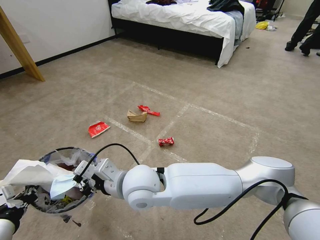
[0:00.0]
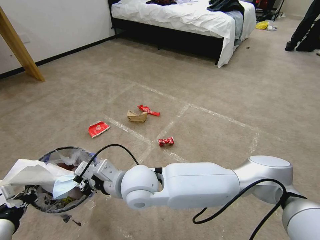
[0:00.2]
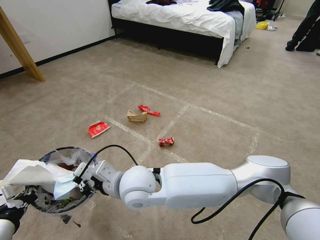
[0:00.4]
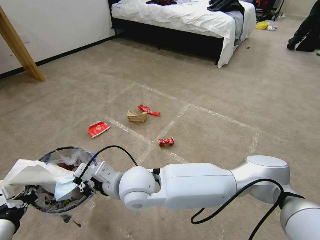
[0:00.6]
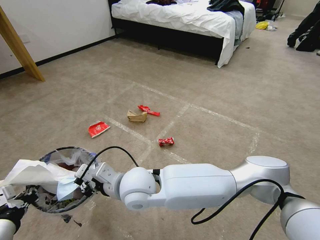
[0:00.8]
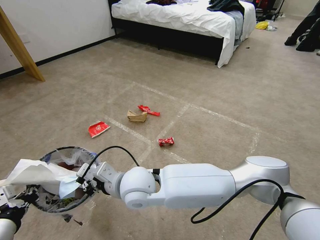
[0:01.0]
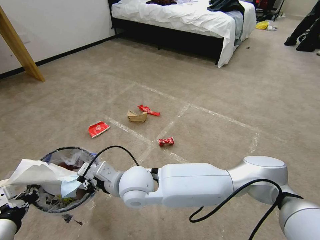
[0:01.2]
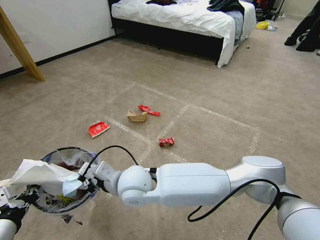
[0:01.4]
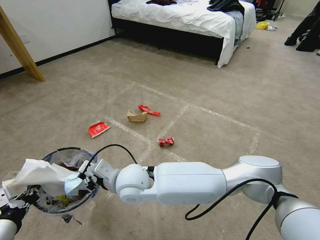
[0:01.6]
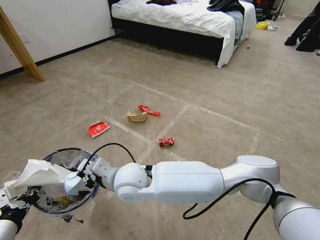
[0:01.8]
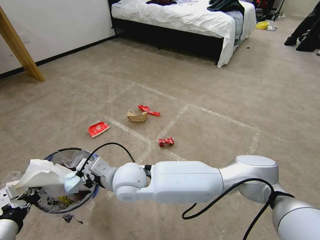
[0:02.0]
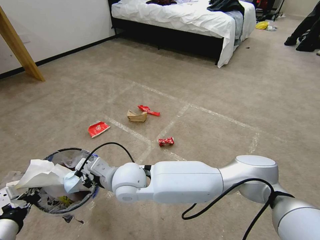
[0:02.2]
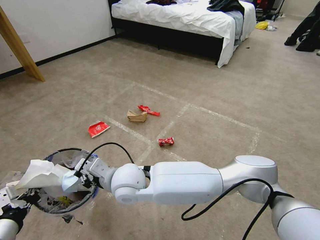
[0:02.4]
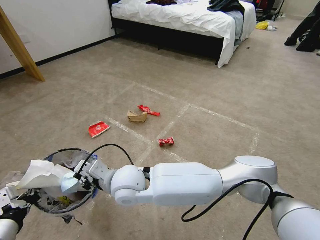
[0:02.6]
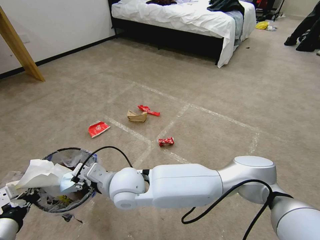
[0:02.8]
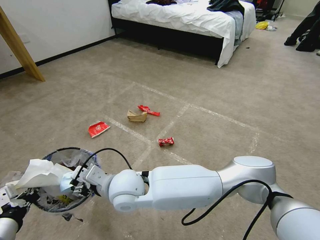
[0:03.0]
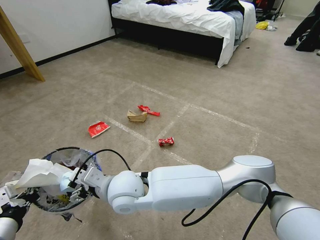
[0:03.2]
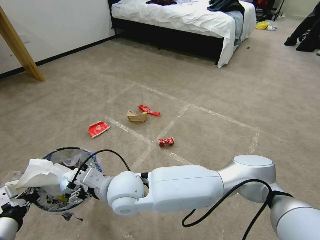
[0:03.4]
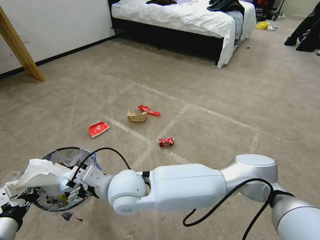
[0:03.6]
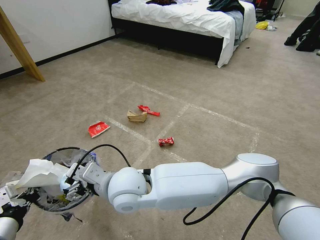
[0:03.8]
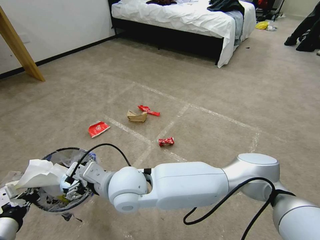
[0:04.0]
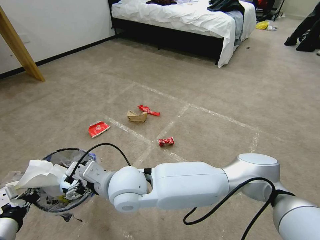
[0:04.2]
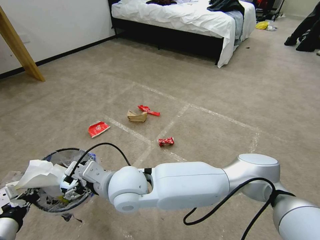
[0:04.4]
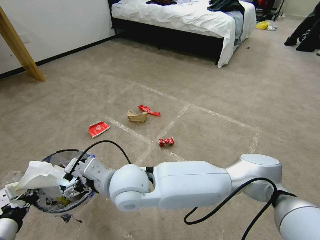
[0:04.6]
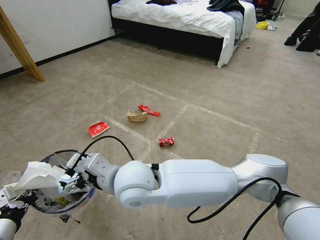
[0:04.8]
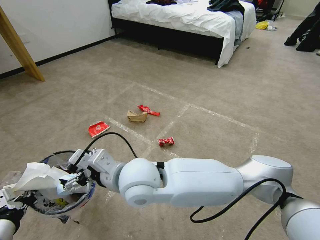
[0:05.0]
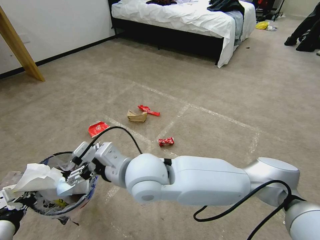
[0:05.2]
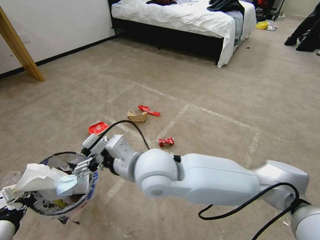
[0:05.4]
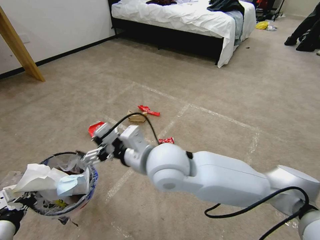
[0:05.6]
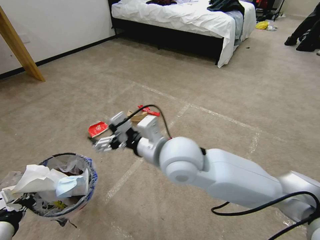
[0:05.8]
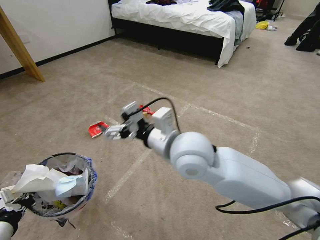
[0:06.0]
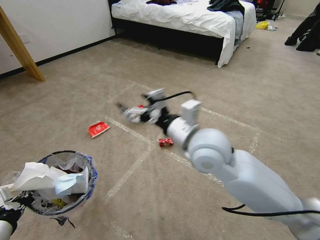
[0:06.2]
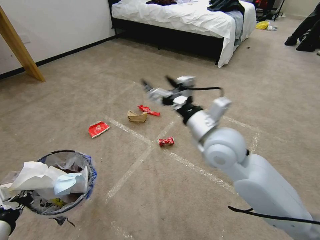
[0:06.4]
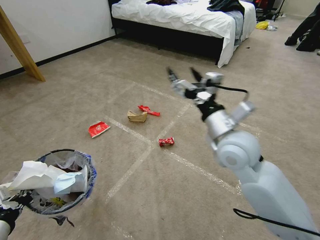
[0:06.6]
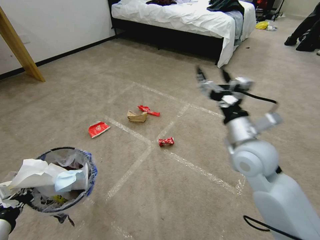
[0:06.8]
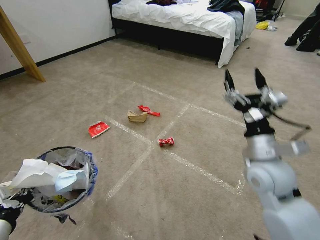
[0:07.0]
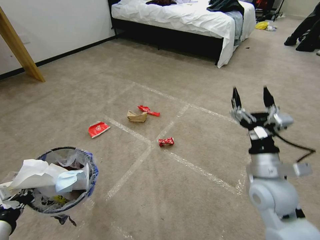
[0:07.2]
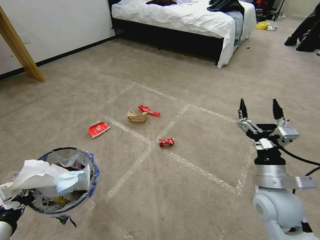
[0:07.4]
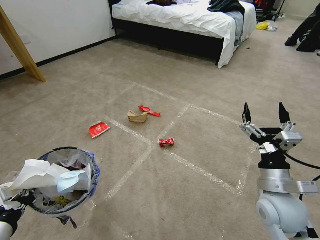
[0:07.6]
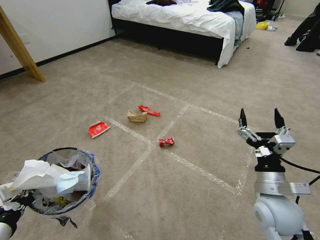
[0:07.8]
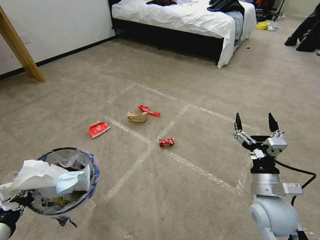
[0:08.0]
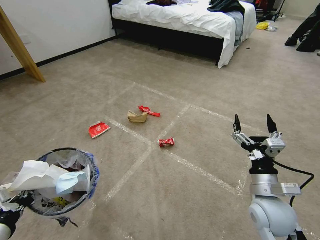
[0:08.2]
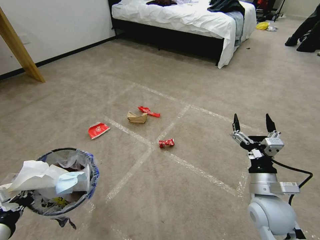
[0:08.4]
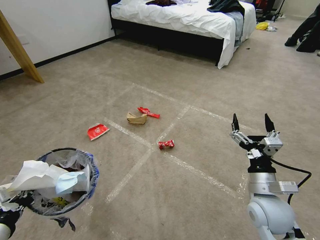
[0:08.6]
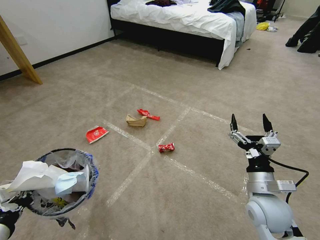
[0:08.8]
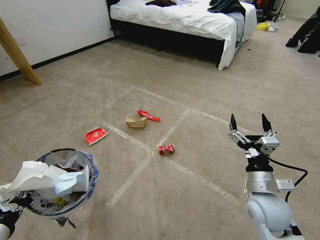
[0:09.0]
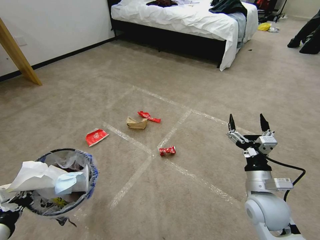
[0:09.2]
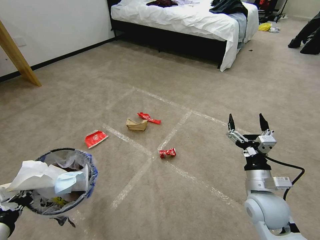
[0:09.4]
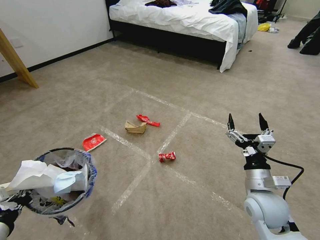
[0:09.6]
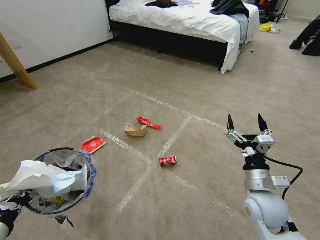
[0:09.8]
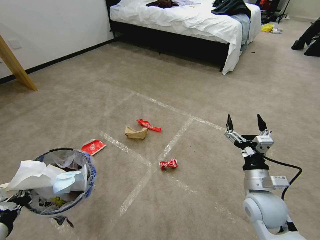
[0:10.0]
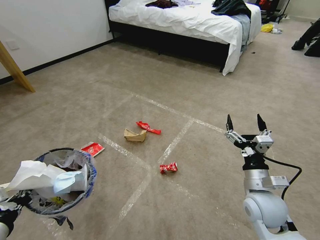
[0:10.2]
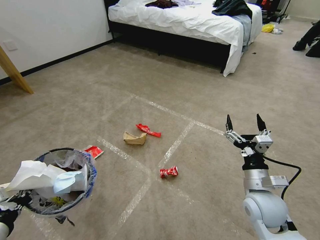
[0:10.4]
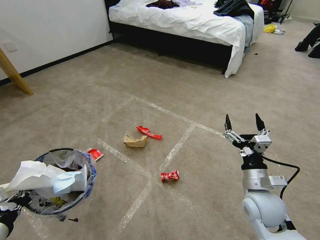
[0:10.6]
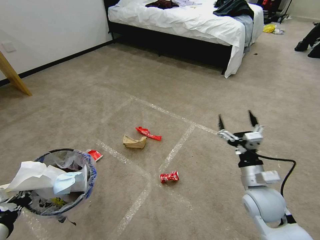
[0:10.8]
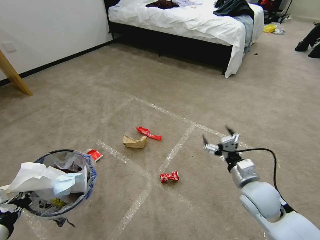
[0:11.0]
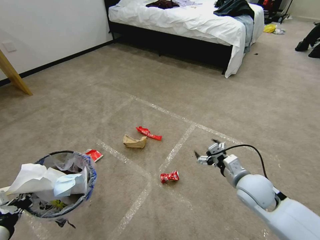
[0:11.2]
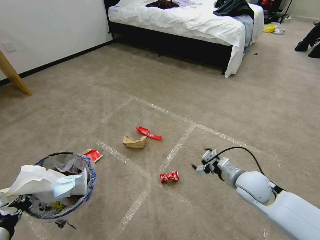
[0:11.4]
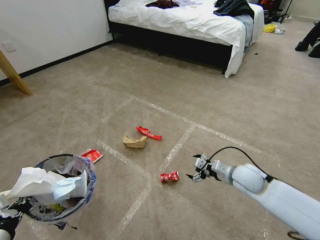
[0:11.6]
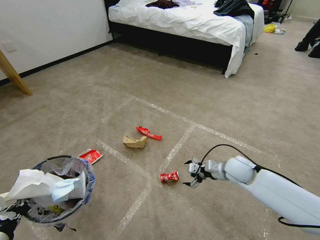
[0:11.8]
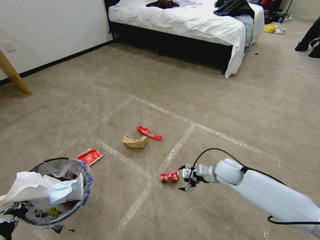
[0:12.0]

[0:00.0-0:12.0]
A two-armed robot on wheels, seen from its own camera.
Task of the whole recording: Pick up the trash bin and place the garbage on the floor into it.
0:00.0 to 0:01.6: The right gripper moves about 5 cm.
0:01.6 to 0:03.0: The right gripper opens up.
0:03.0 to 0:04.4: There are only small adjustments of the grippers.
0:04.4 to 0:06.0: The right gripper goes roughly 20 cm to the right and upward.
0:06.0 to 0:07.6: The right gripper goes about 25 cm to the right and downward.
0:07.6 to 0:09.0: The grippers move only a little.
0:09.0 to 0:10.4: The two grippers keep their place.
0:10.4 to 0:12.0: The right gripper travels forward and downward by roughly 15 cm.

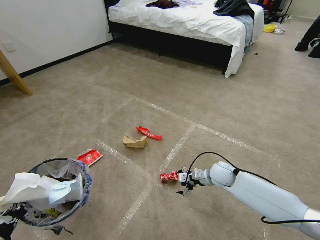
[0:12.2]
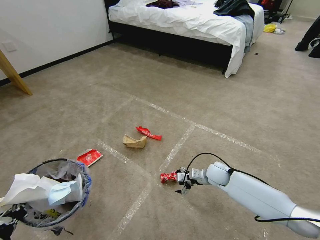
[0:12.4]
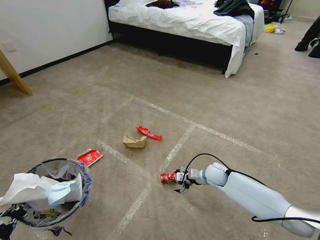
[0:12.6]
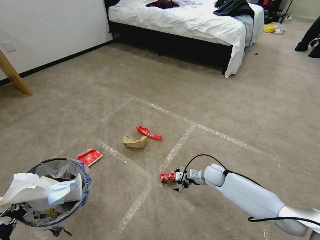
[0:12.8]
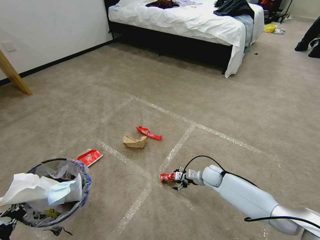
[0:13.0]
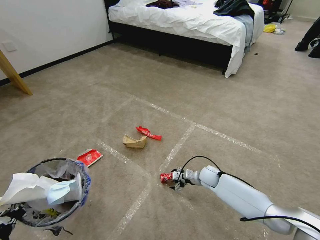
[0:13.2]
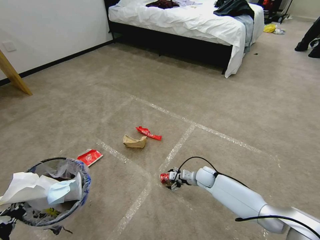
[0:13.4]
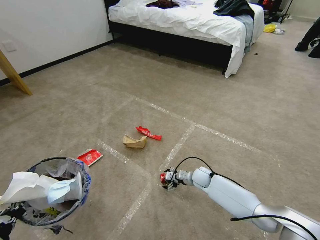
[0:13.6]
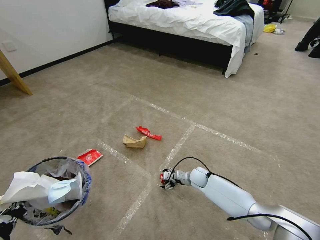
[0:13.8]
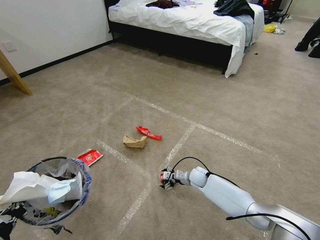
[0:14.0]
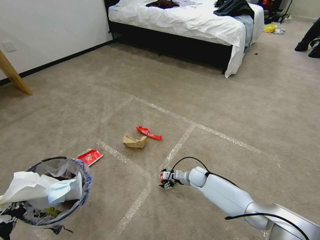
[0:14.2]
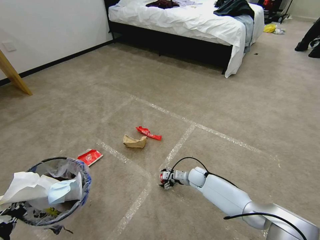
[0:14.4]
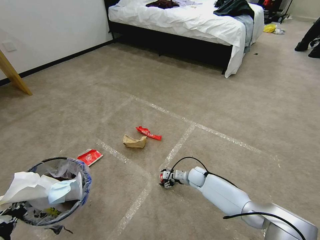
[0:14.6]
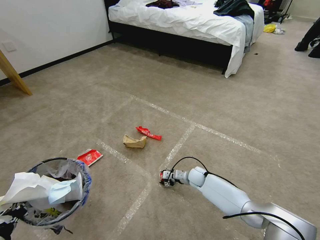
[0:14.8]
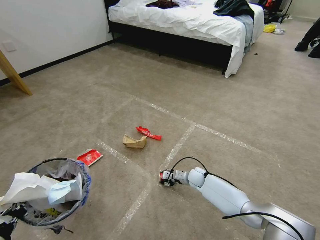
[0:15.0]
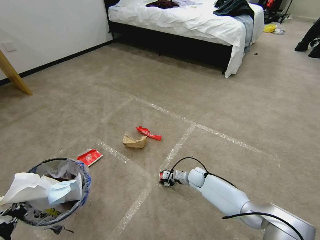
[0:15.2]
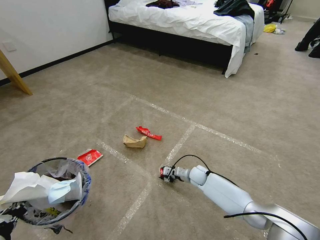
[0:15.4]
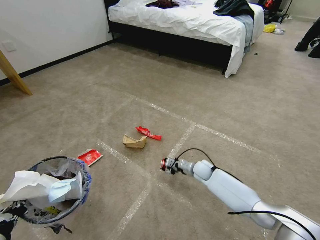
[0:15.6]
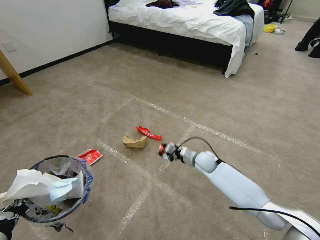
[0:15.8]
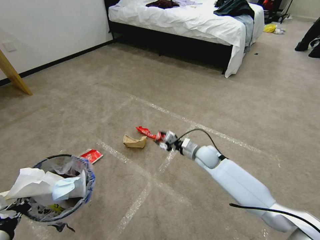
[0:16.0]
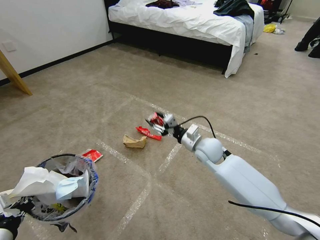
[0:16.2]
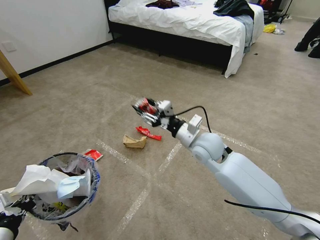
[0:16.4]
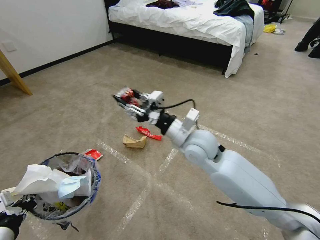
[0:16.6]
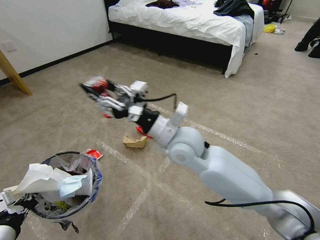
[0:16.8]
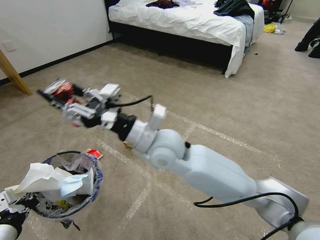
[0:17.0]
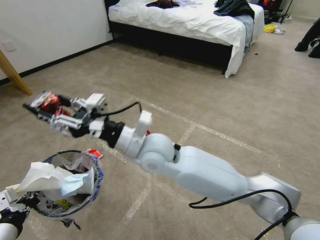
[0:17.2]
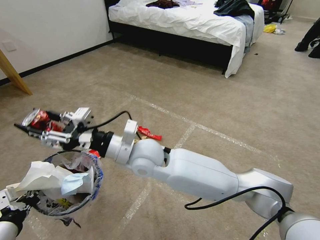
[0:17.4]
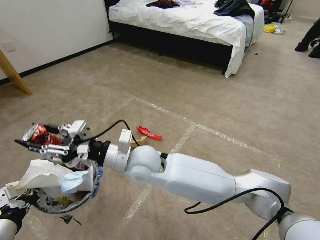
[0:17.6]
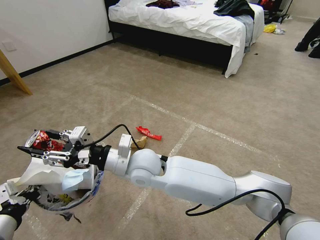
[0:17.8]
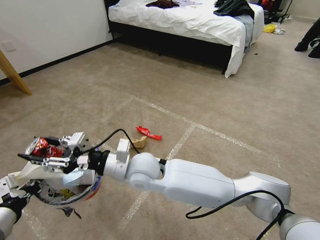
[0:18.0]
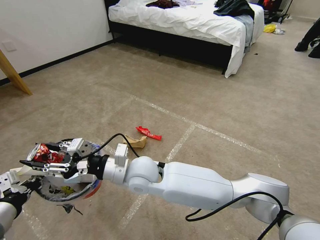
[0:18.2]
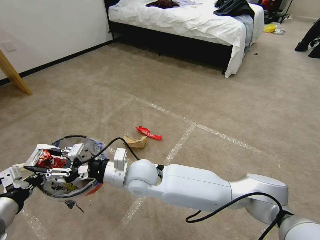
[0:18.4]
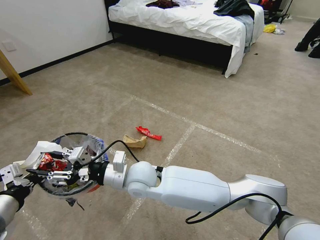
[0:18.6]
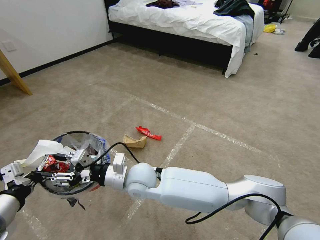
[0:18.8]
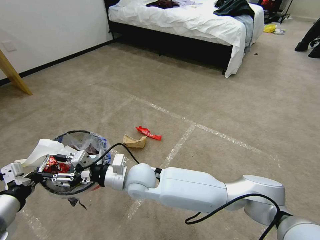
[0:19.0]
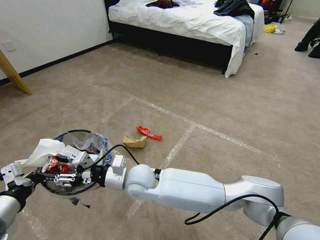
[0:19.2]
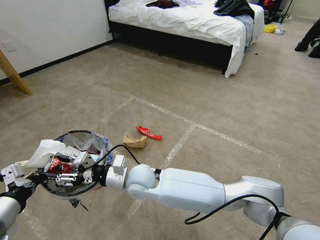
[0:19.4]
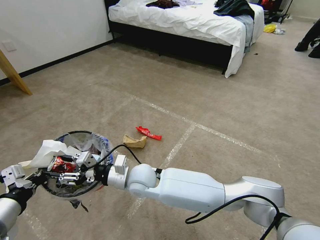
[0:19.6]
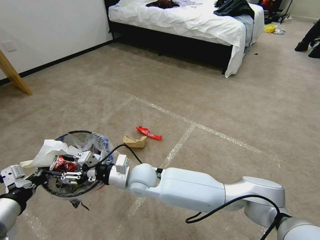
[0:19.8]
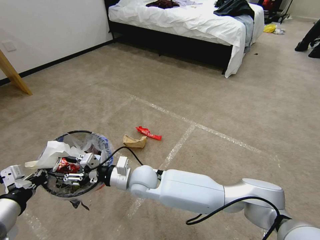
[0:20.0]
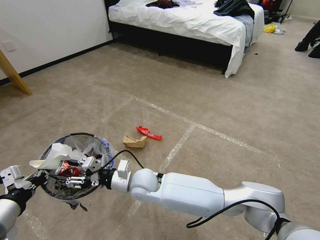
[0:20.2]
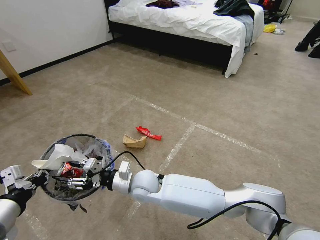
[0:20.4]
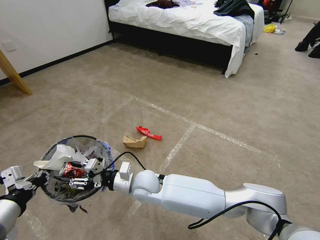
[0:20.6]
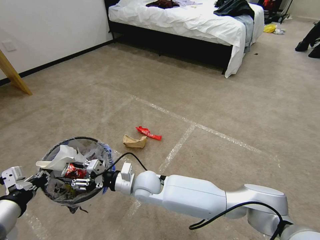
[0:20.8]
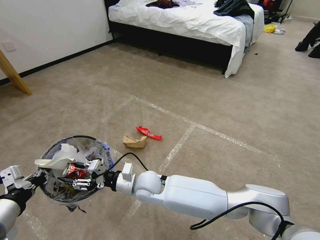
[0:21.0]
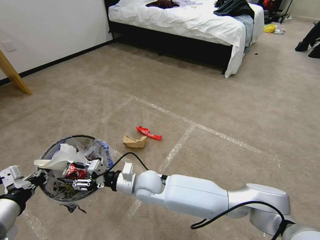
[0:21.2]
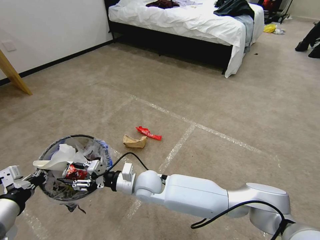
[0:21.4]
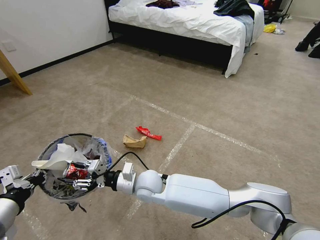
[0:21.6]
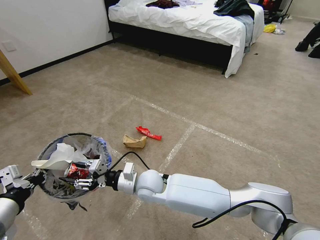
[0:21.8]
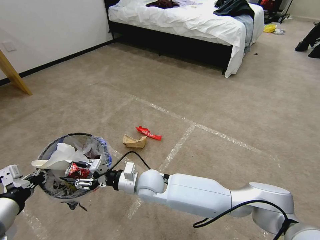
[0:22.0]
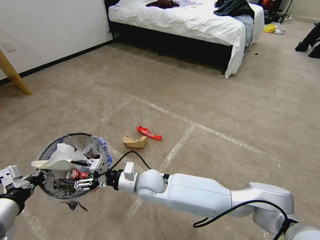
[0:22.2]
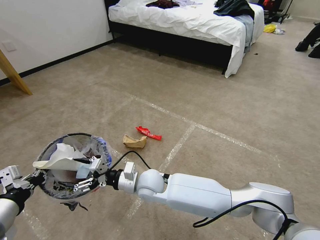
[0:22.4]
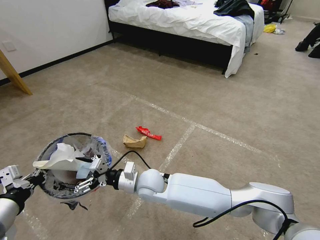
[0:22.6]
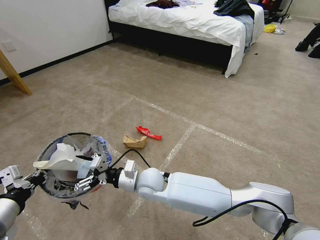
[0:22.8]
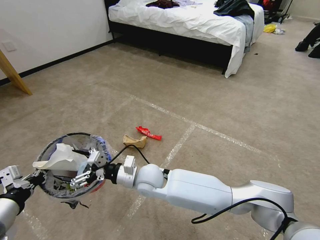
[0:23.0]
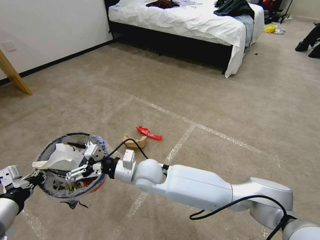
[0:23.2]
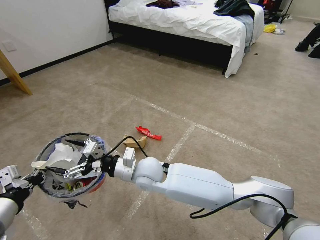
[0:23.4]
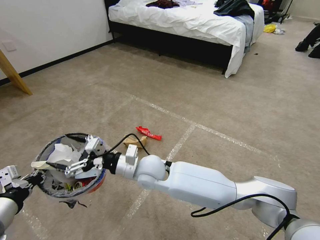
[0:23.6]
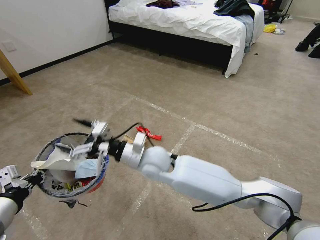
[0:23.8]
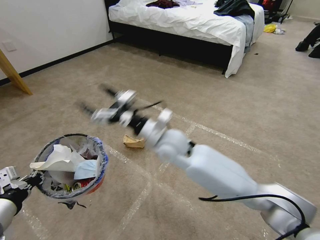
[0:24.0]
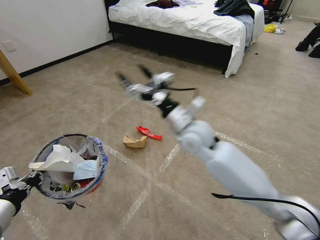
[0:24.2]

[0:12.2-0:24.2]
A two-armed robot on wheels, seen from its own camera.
Task of the whole recording: Pick up the trash bin and place the garbage on the floor into it.
0:12.2 to 0:13.8: The right gripper travels downward and to the left by roughly 15 cm.
0:13.8 to 0:15.2: The right gripper closes up.
0:15.2 to 0:16.6: The right gripper travels upward by about 35 cm.
0:16.6 to 0:18.2: The left gripper ends up approximately 5 cm from where it was. The right gripper is displaced to the left and downward by roughly 15 cm.
0:18.2 to 0:19.8: The right gripper heads downward, covering some 5 cm.
0:19.8 to 0:21.2: The grippers make only small movements.
0:21.2 to 0:22.6: The right gripper opens up.
0:22.6 to 0:24.2: The right gripper travels upward, to the right and forward by about 25 cm.
